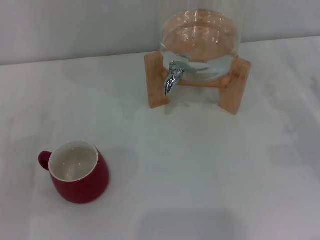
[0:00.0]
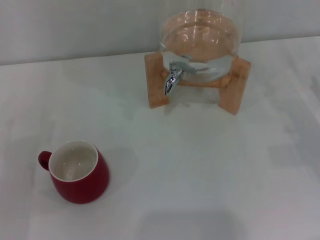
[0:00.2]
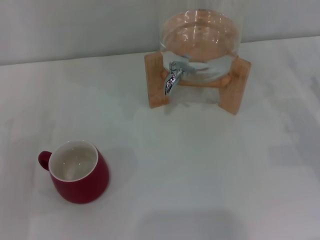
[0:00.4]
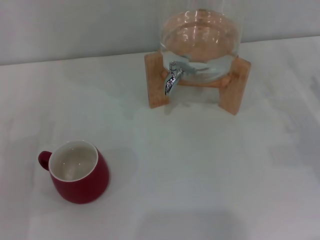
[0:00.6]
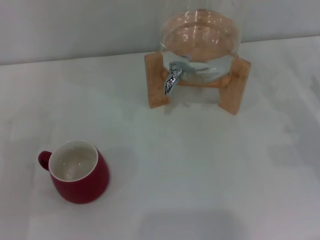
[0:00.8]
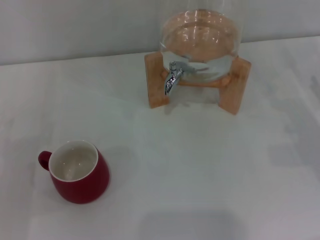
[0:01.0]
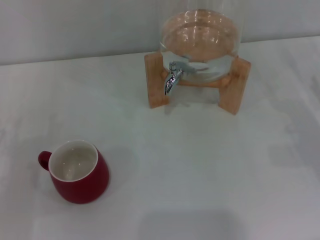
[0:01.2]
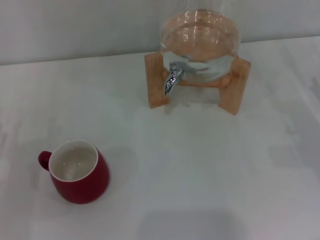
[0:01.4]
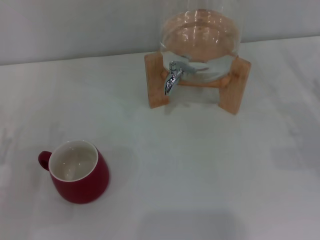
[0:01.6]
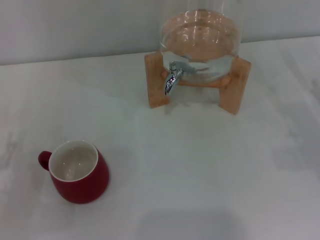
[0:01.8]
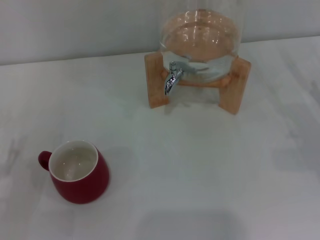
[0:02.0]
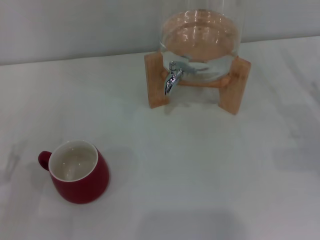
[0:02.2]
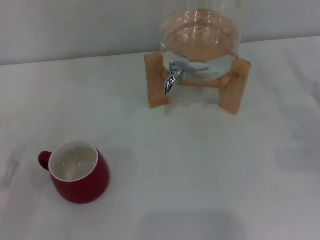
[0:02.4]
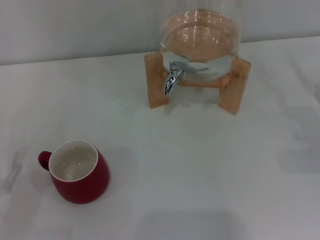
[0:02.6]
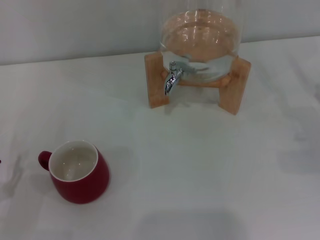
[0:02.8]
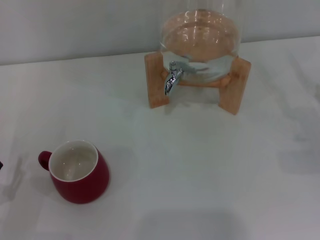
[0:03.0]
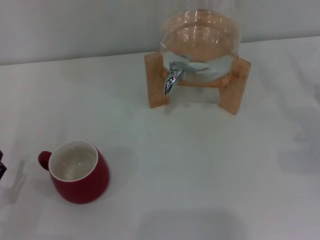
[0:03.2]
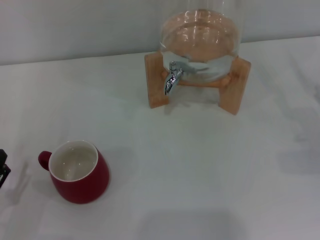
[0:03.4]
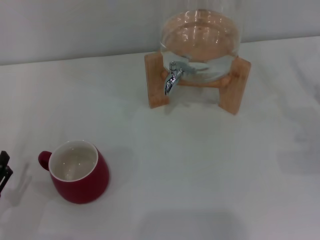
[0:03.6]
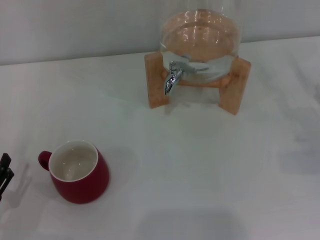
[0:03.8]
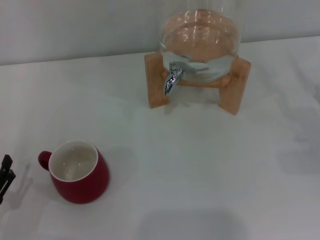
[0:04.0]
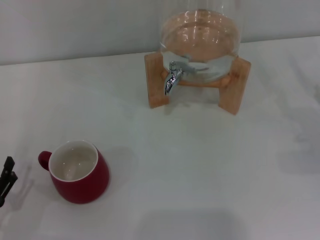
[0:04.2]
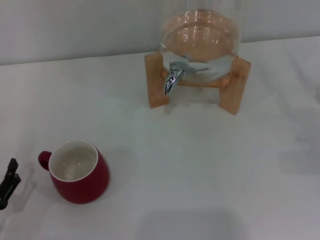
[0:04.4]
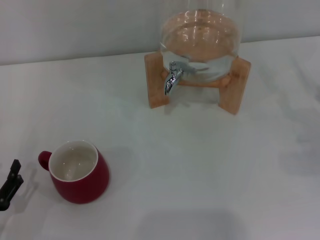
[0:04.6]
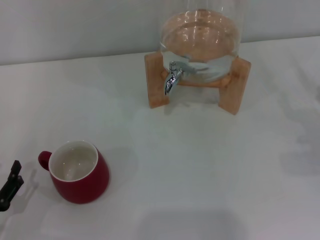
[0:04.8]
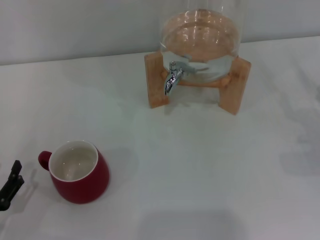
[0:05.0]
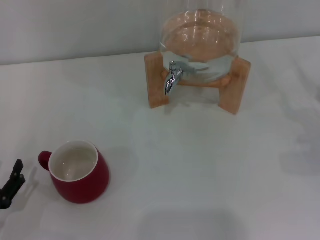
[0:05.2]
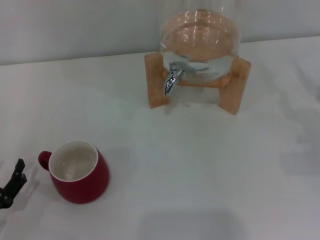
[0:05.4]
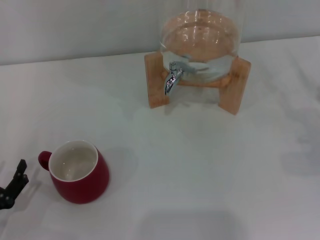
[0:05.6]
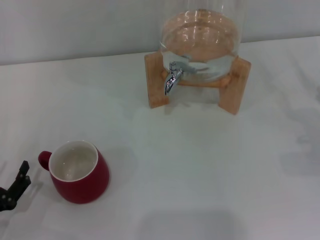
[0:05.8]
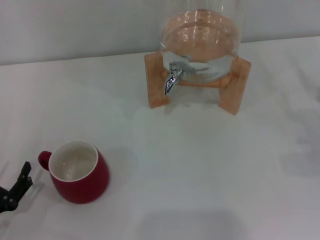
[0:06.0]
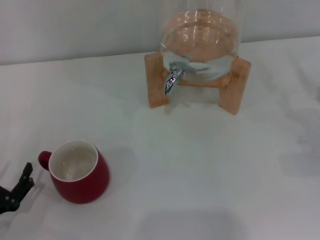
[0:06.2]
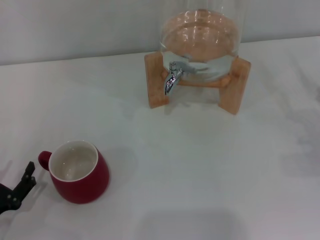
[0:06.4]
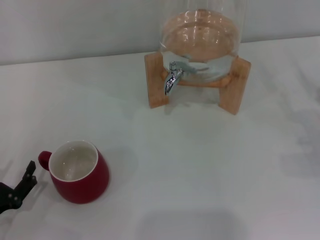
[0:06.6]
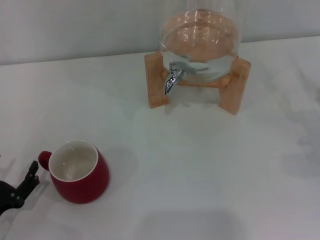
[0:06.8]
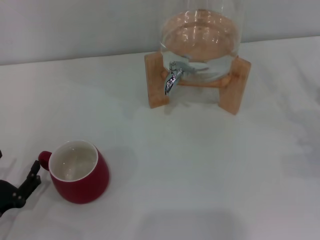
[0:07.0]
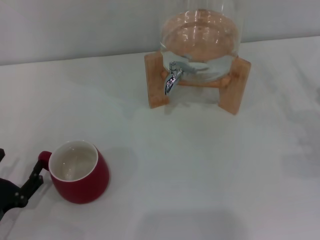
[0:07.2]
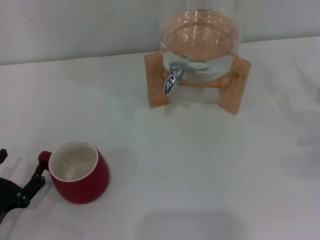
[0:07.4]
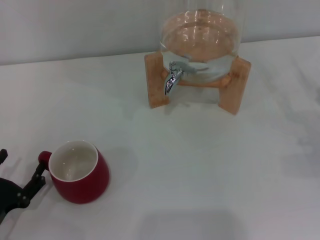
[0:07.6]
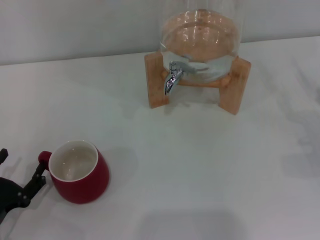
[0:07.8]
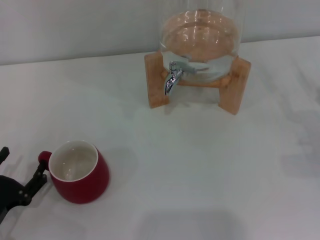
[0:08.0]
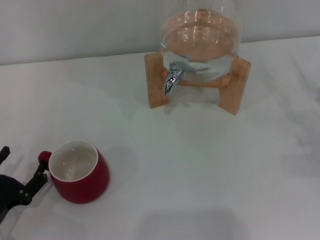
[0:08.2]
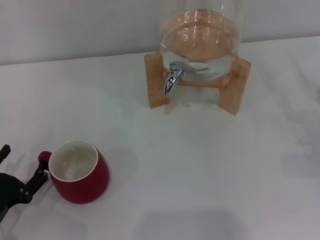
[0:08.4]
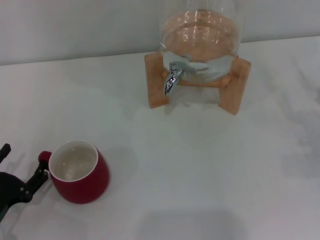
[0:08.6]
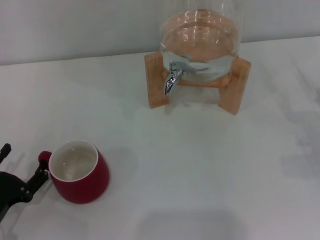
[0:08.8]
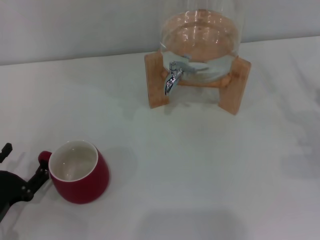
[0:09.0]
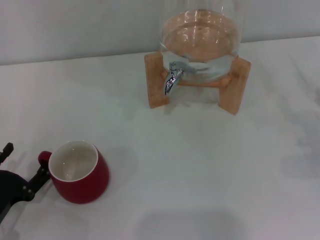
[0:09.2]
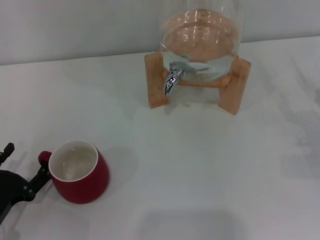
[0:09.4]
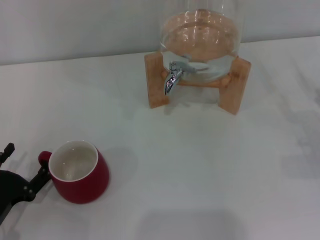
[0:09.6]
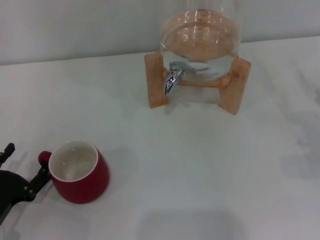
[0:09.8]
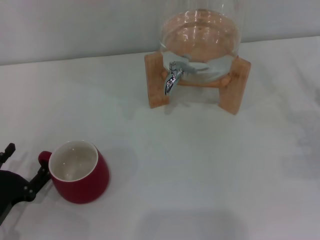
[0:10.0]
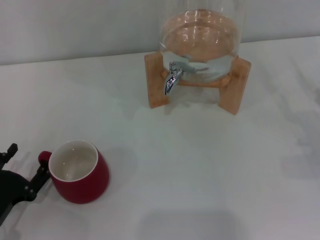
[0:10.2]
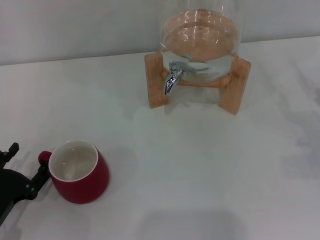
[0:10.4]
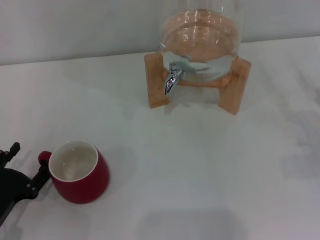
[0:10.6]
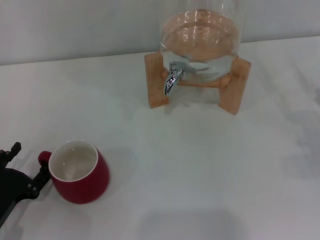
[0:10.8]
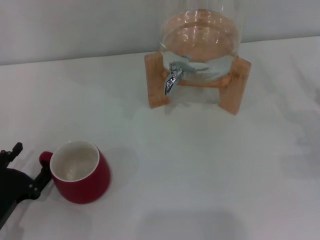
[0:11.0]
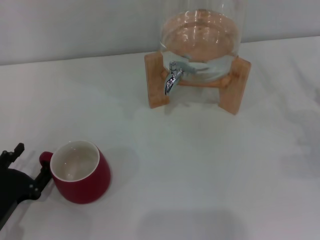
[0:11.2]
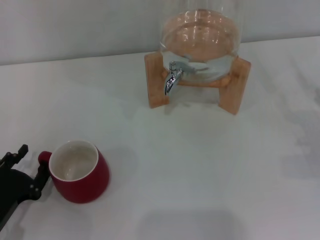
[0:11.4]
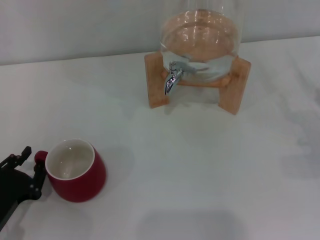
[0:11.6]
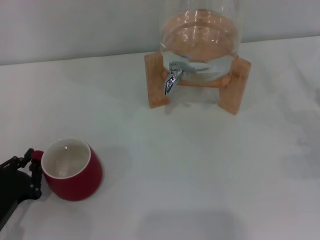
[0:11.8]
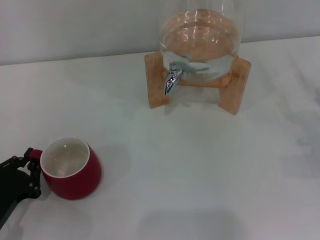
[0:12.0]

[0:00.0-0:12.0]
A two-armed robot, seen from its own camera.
Task of the whole recording: the left gripper pick up the red cup and place it horizontally under the faucet, the right gripper turn on the faucet to fill the cup, and then turn off the faucet.
0:04.4 to 0:07.6: The grippers stay close to where they were, moving slightly.
0:07.6 to 0:09.0: Neither gripper changes place.
0:09.0 to 0:10.4: Both grippers stay about where they are.
0:10.4 to 0:12.0: The left gripper closes its fingers.

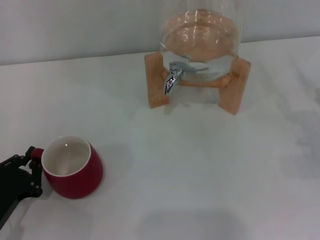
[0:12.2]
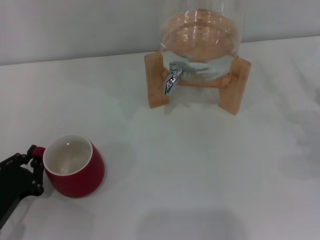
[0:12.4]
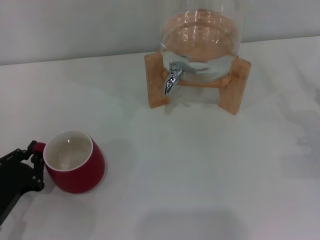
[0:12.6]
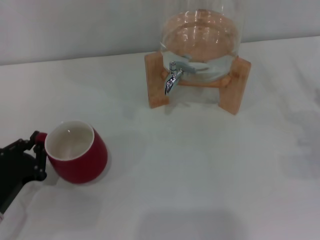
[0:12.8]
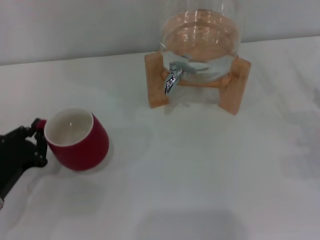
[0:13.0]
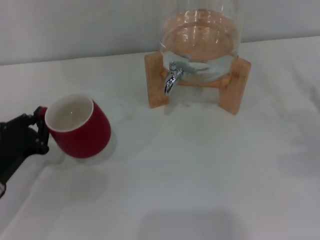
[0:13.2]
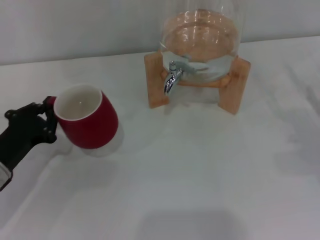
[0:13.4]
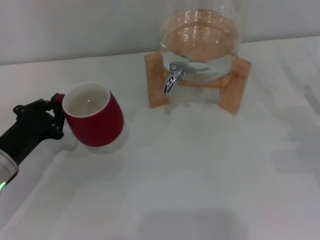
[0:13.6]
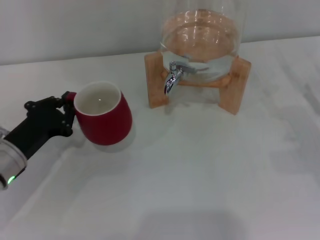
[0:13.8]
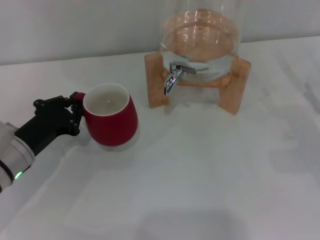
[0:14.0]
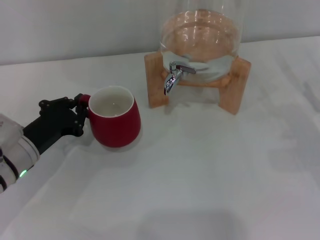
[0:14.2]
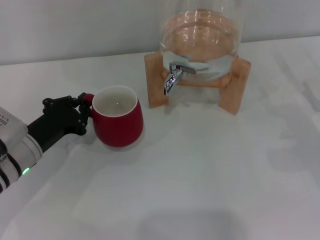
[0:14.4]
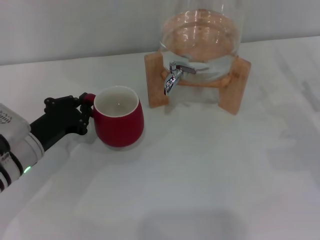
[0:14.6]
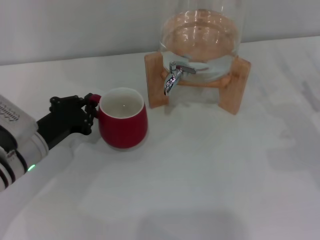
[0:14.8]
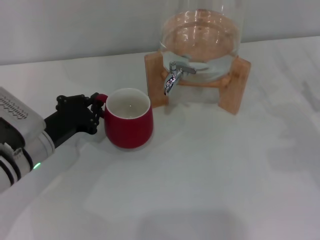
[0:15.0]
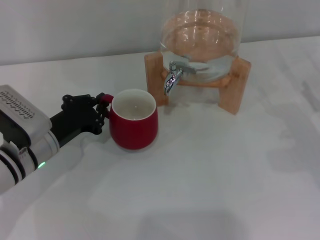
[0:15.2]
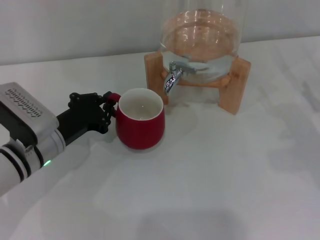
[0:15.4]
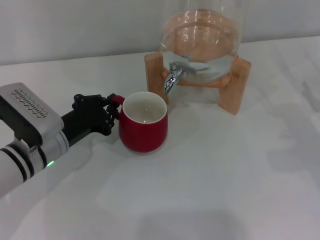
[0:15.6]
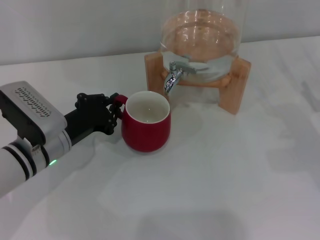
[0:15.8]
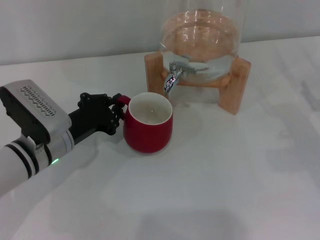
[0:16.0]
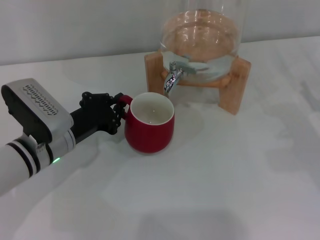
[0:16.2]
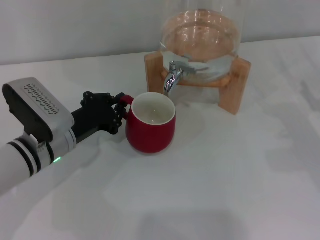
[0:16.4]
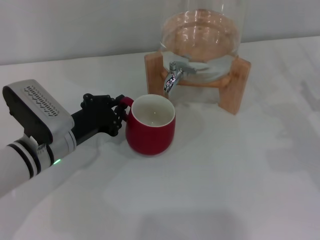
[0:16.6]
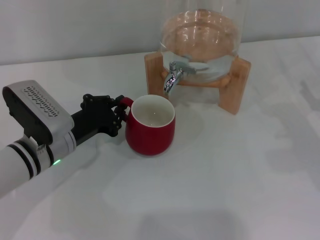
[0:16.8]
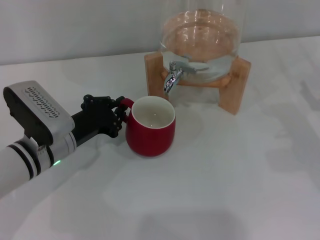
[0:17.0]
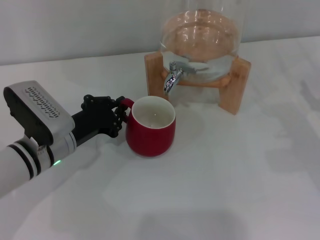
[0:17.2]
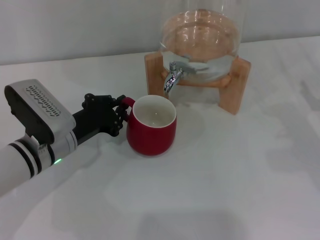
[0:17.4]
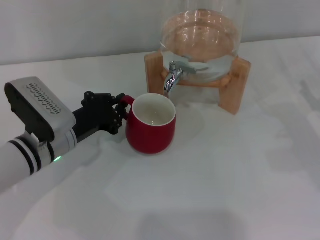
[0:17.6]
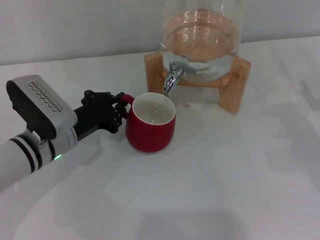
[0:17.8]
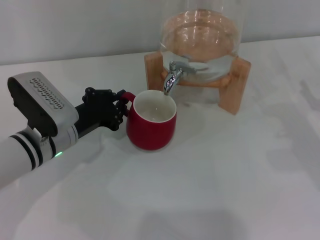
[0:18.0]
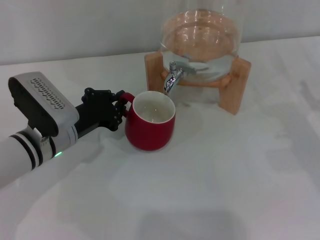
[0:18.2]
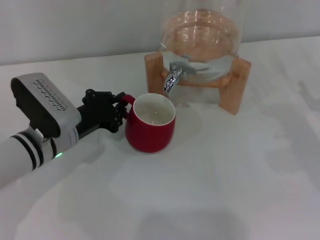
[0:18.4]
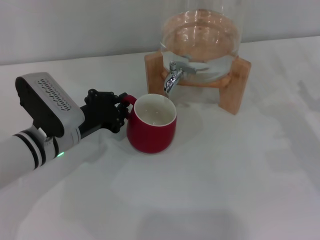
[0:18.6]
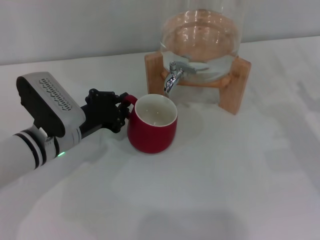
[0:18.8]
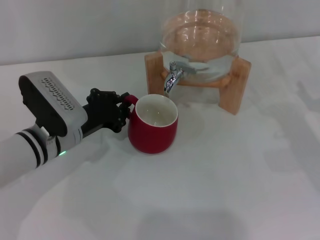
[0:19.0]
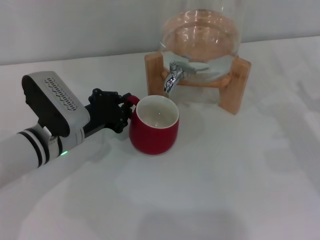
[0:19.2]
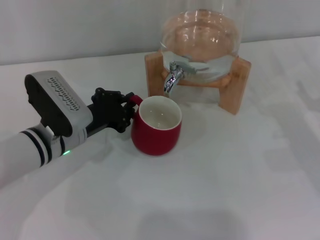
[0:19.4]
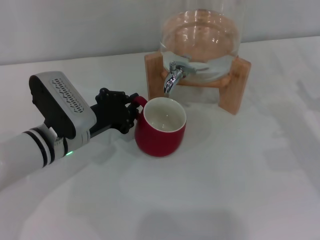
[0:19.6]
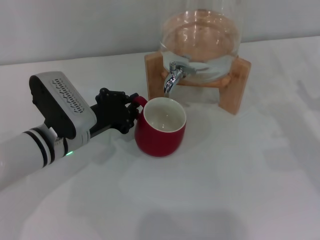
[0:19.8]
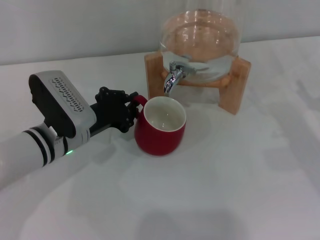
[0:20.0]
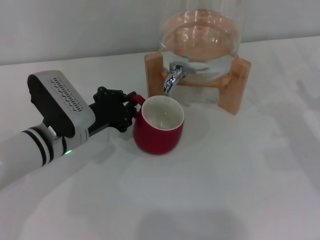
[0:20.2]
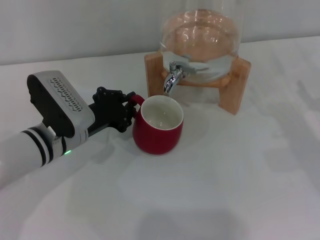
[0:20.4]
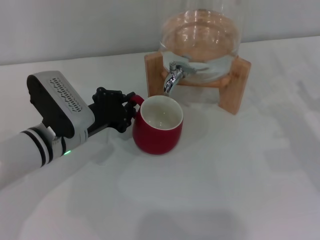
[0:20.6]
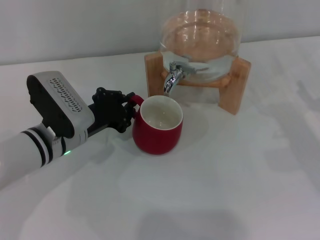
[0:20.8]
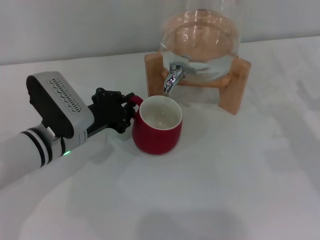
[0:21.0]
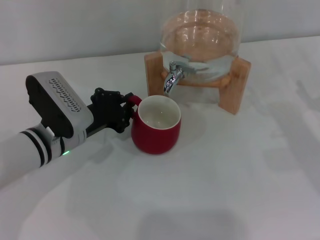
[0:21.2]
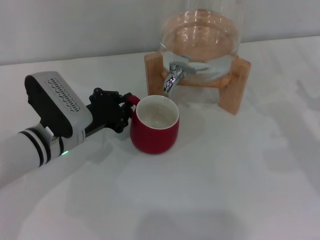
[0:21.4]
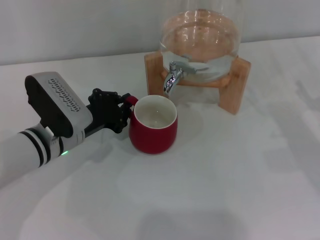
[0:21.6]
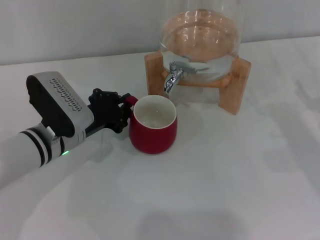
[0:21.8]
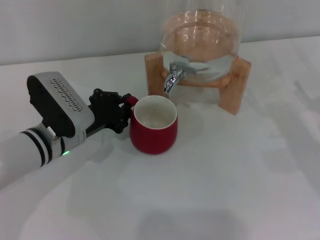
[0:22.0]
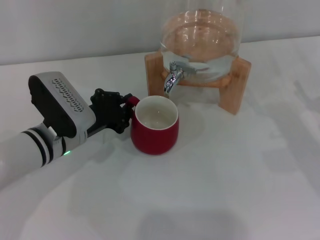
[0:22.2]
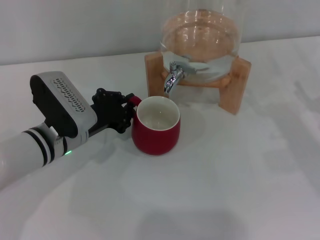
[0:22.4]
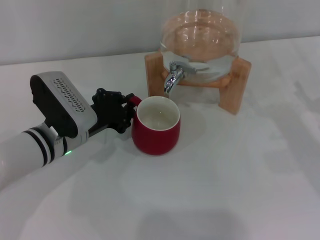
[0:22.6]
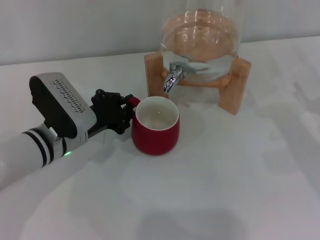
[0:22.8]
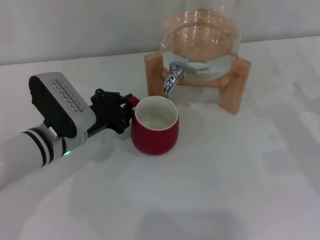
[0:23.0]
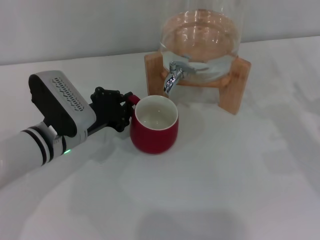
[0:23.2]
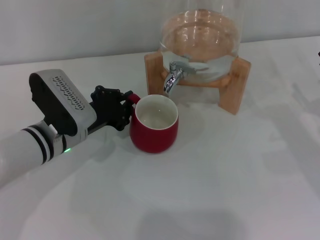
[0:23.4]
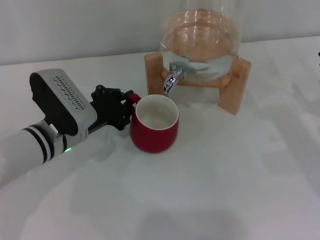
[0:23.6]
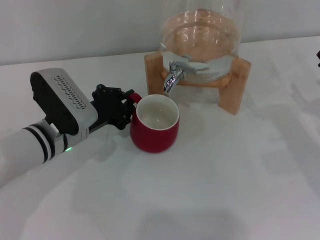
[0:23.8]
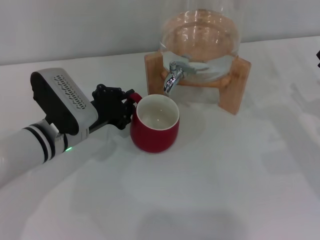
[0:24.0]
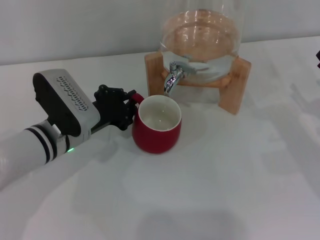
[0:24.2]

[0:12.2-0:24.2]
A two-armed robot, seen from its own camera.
Task of the whole recording: the left gripper pick up the red cup and place it horizontally under the faucet, the right gripper turn on the faucet to fill the cup, and then turn off the faucet.
0:12.2 to 0:13.8: The left gripper is displaced forward by some 10 cm.
0:13.8 to 0:15.2: The left gripper shifts by about 5 cm.
0:15.2 to 0:16.6: The grippers make only small movements.
0:16.6 to 0:18.2: Both grippers stay put.
0:18.2 to 0:19.8: The grippers move only a little.
0:19.8 to 0:24.2: Both grippers stay about where they are.
